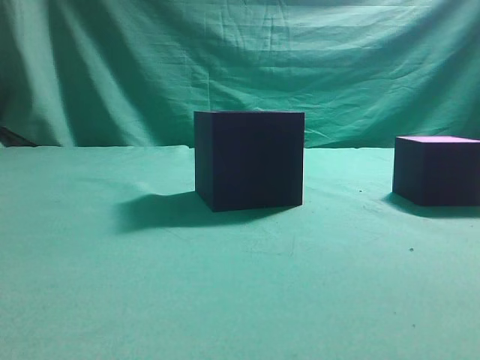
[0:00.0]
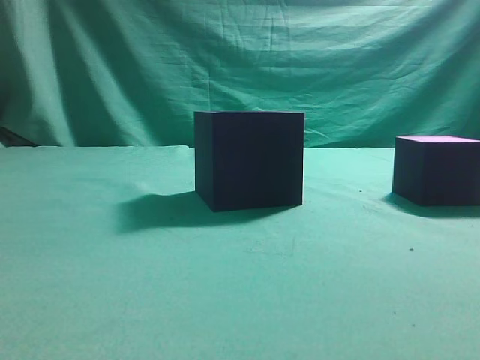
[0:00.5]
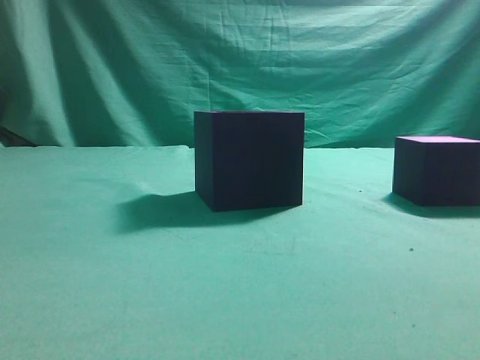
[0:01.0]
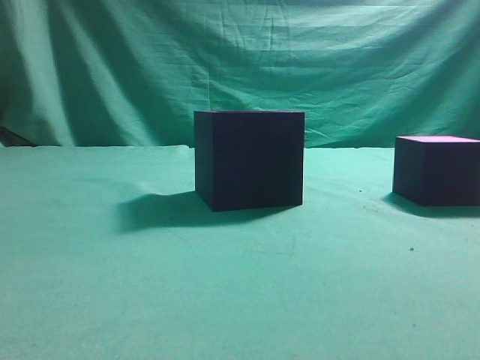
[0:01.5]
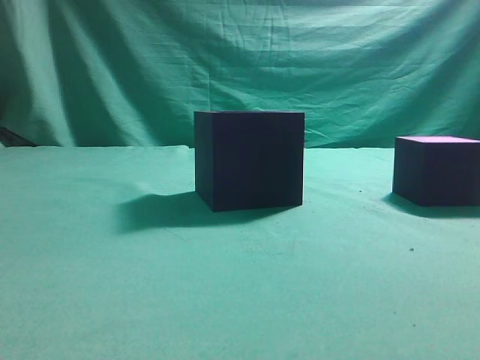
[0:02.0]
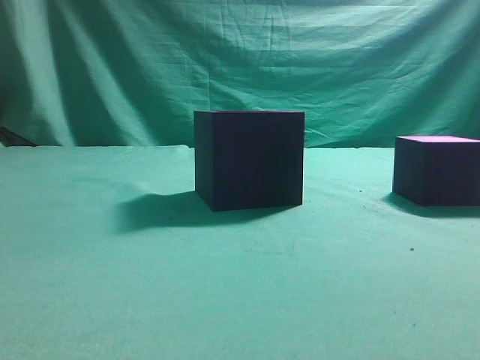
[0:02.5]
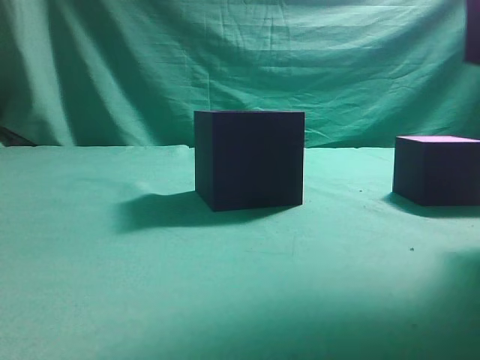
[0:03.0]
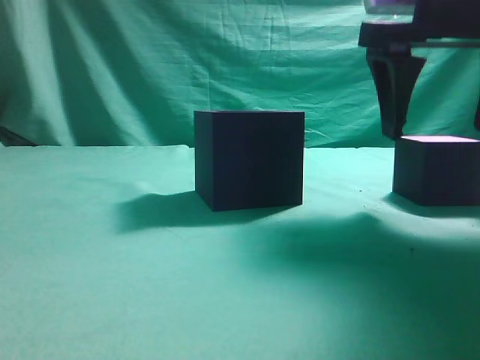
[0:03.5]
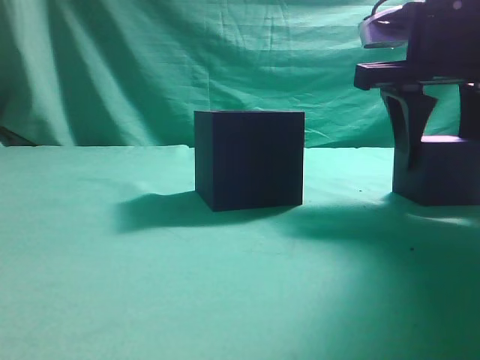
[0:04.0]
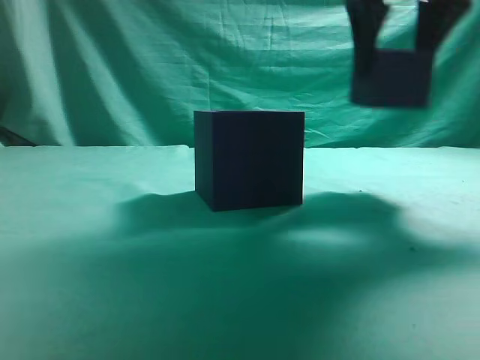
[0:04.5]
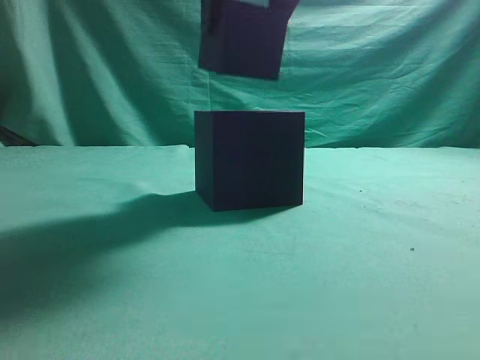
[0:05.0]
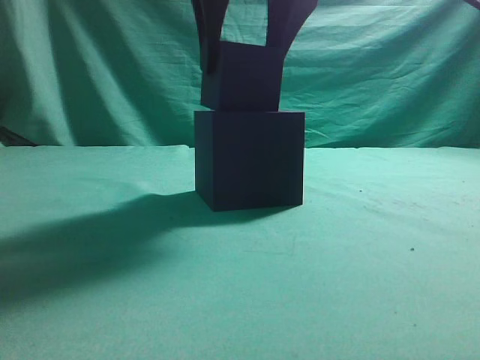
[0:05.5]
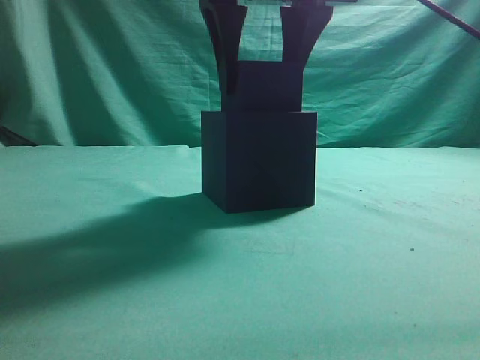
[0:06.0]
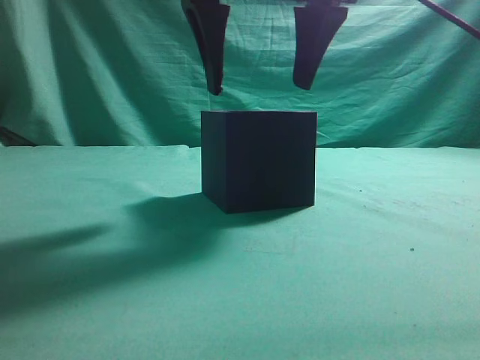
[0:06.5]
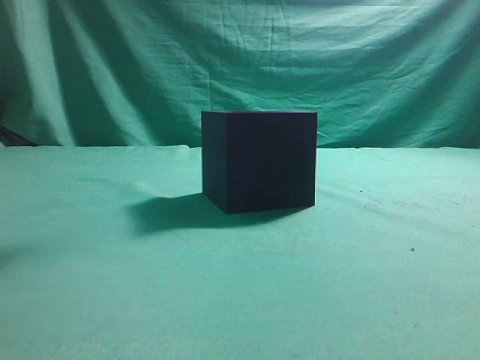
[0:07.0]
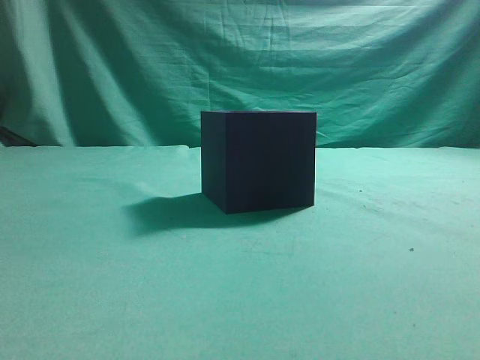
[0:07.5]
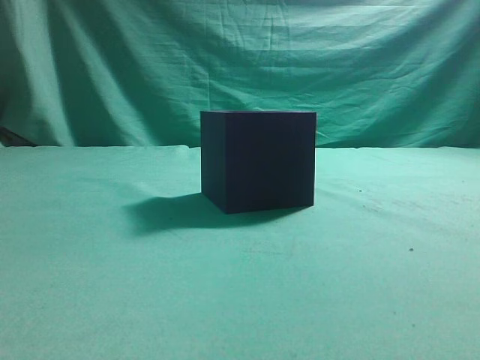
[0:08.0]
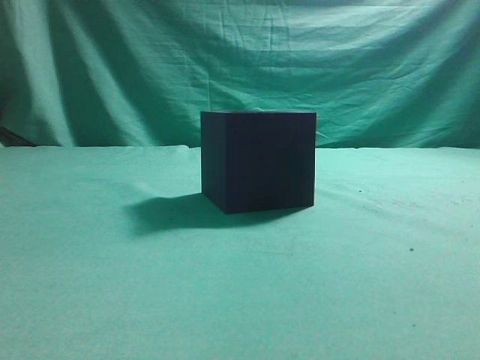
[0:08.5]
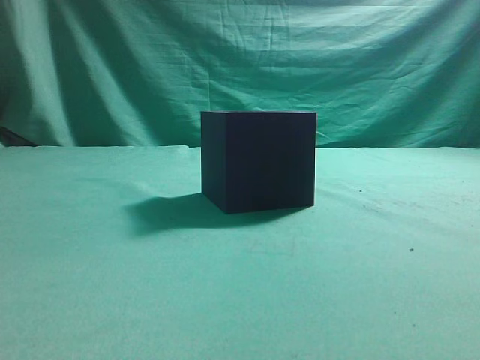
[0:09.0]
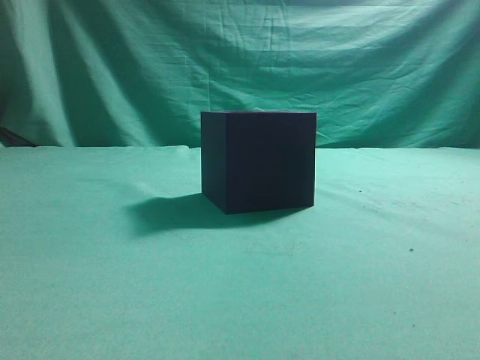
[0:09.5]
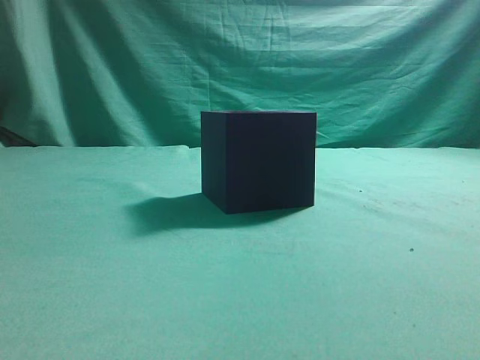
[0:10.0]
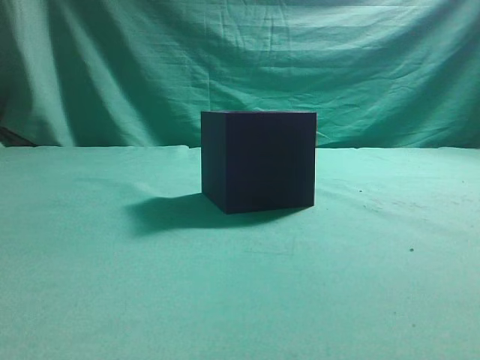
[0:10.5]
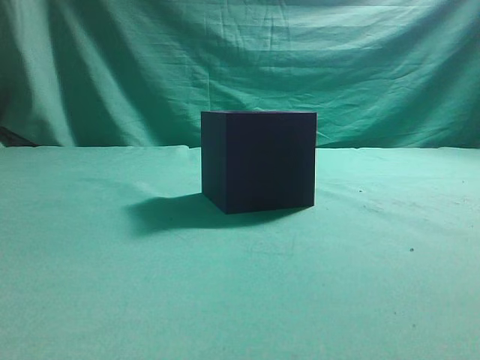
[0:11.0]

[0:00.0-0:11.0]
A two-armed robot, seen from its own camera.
Task of the whole recording: pick up the cube block and place it into the cube groove.
Step, 0:00.0 to 0:04.0: Grasp the cube.
Step, 0:04.5 to 0:06.5: Place cube into the cube-shaped recess.
0:02.0 to 0:03.5: The right gripper goes roughly 25 cm forward and to the left, and opens up.
0:03.5 to 0:05.5: The right gripper travels to the left by approximately 15 cm.
0:05.5 to 0:07.5: The right gripper goes roughly 20 cm upward, to the right and backward, and closes.
